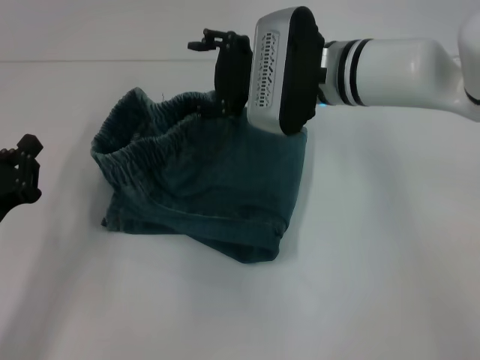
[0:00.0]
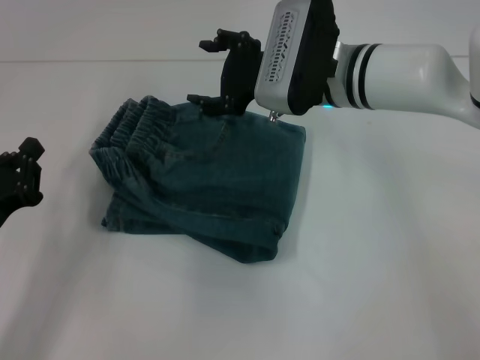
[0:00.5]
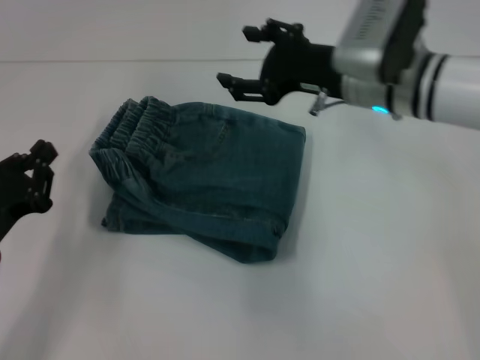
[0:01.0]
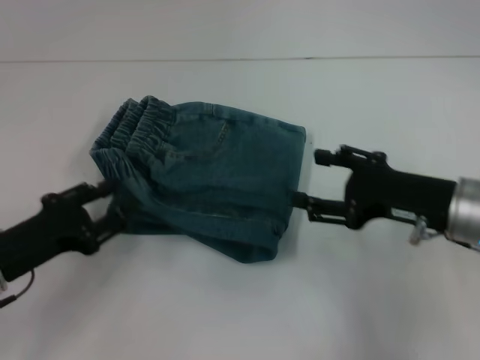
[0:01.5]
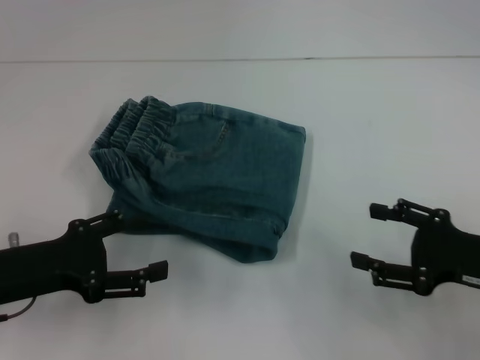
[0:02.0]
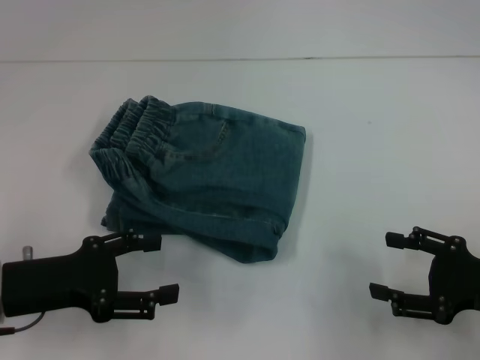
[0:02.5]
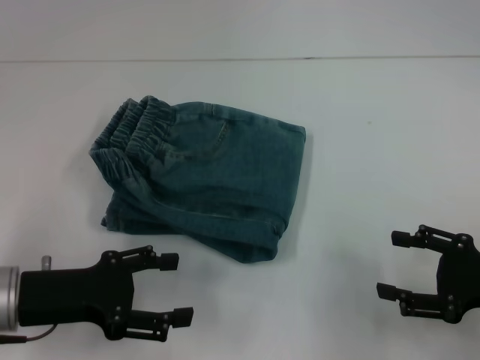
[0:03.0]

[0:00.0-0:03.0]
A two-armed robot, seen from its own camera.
0:00.0 to 0:01.5: The right gripper goes roughly 20 cm to the right and backward.
0:01.5 to 0:03.0: The right gripper travels to the right and backward by approximately 10 cm. The left gripper opens its fingers.

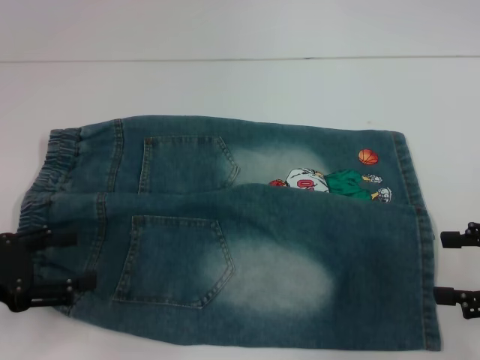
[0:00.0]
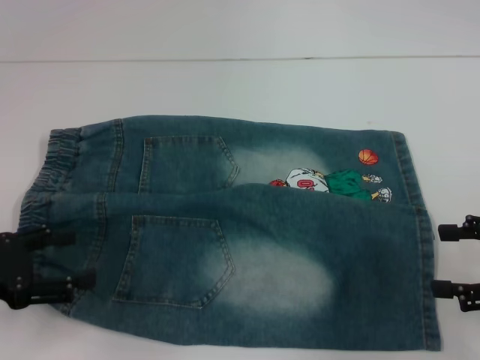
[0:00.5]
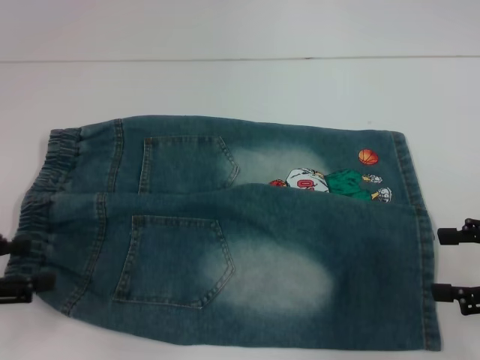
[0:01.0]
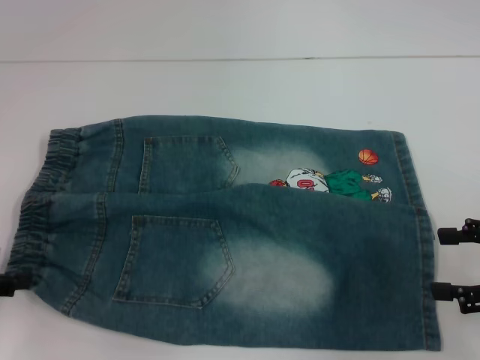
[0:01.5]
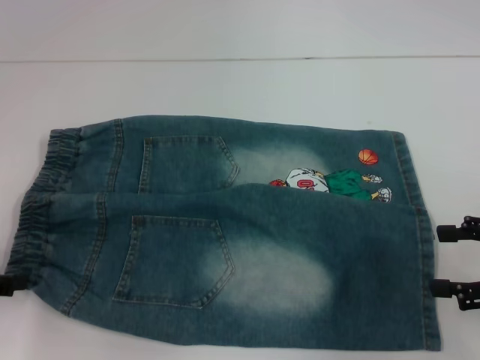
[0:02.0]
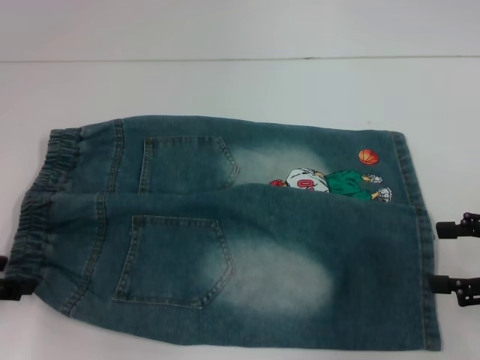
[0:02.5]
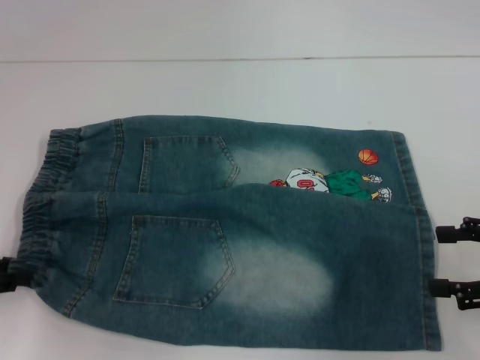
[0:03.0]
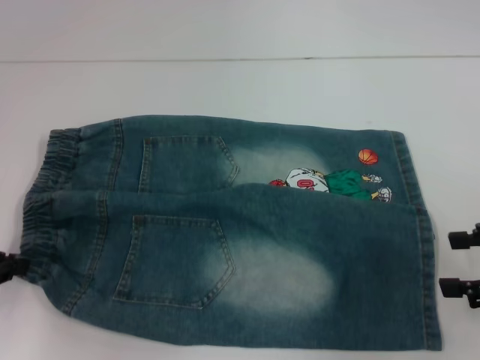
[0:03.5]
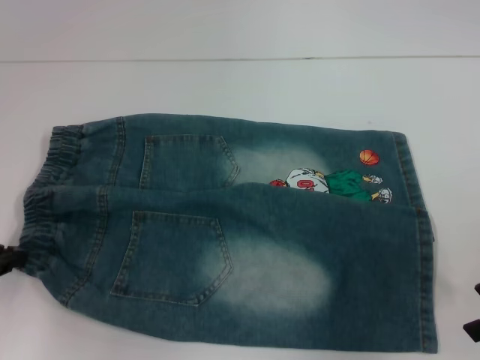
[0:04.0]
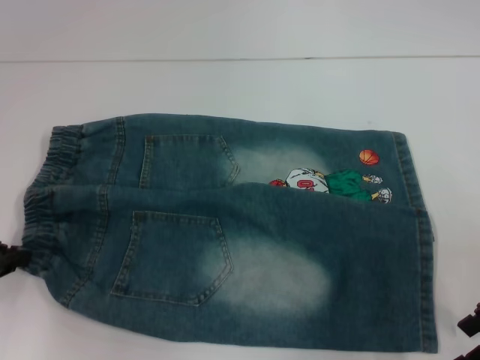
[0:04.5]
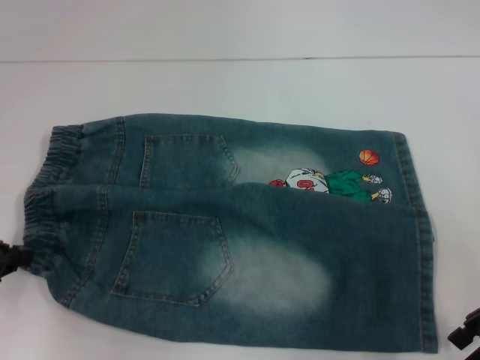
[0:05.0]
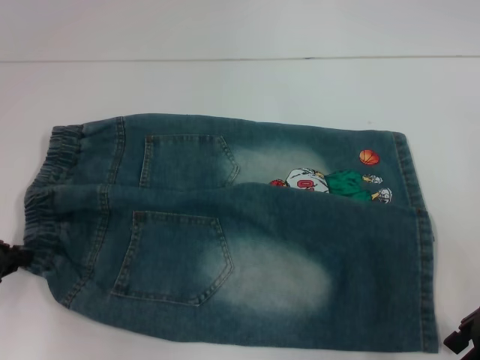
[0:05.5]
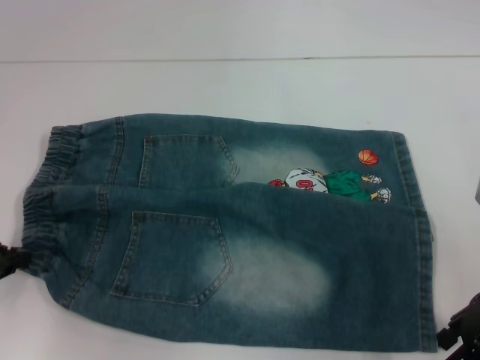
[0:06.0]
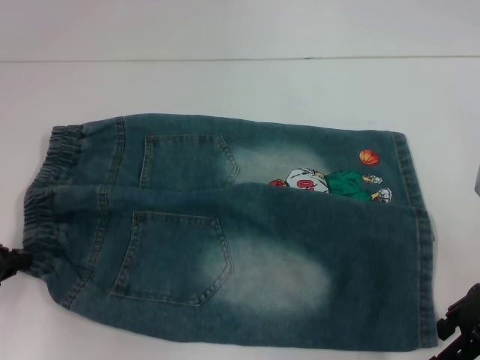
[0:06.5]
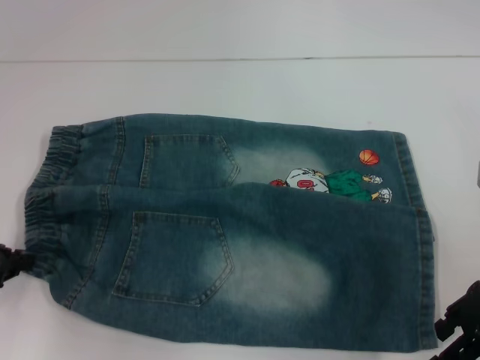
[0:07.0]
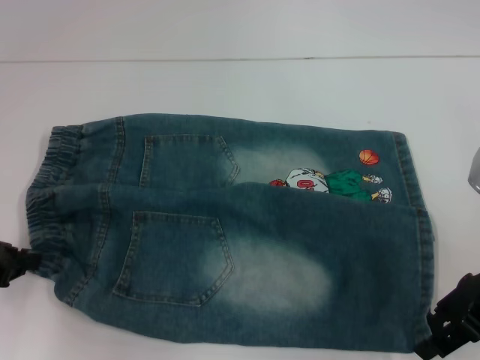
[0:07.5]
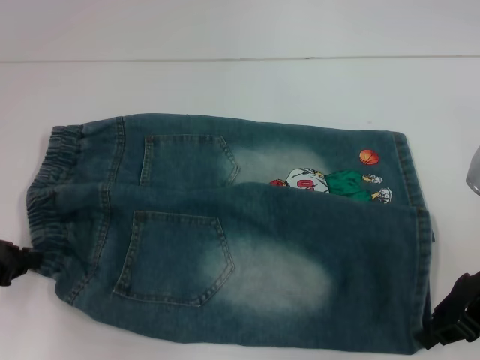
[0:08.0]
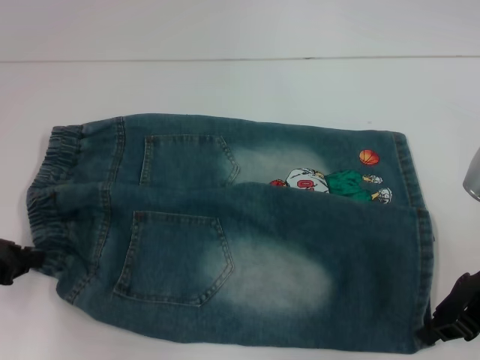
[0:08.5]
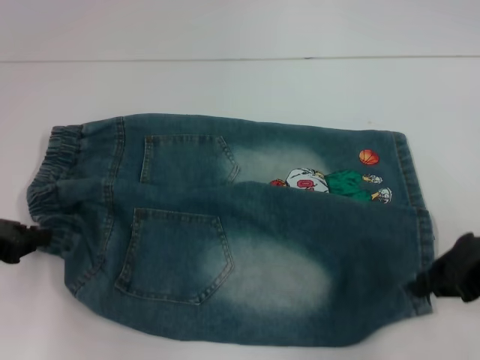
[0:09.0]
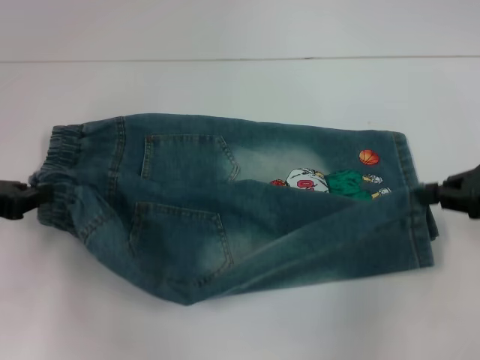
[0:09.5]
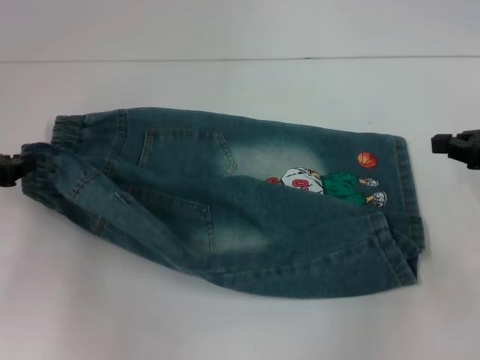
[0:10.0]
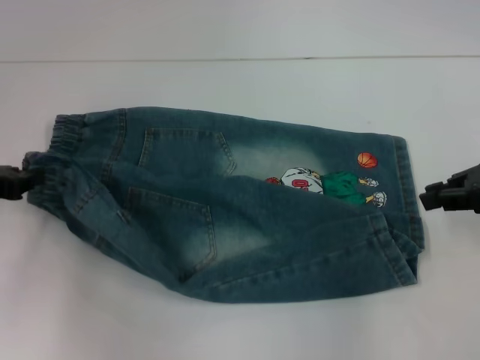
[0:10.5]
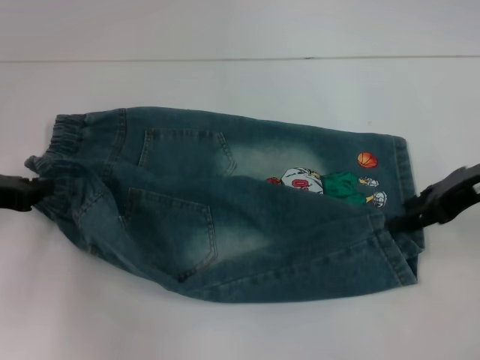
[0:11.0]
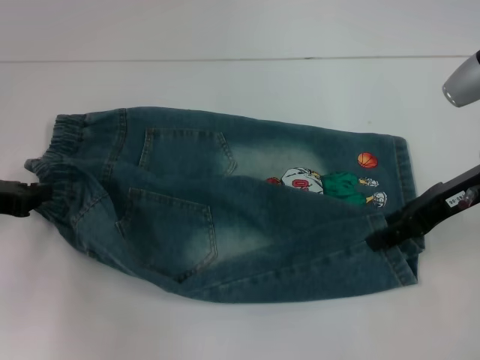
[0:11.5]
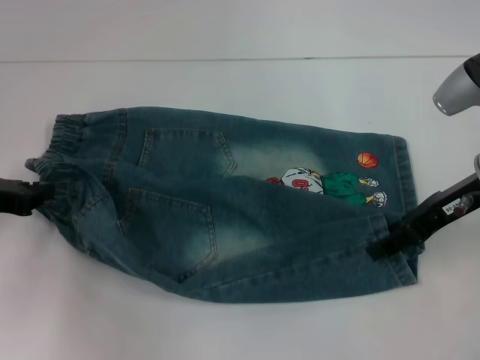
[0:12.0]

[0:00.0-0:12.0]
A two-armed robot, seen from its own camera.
Step, 0:00.0 to 0:04.0: Hold the lower left waistband with your left hand.
Step, 0:04.5 to 0:08.5: Grab the lower right pant leg with your right hand.
0:02.0 to 0:04.0: The left gripper closes up.
0:04.0 to 0:06.0: The right gripper moves to the left, some 5 cm.
0:06.0 to 0:08.0: The right gripper closes its fingers.
0:08.0 to 0:10.0: The right gripper moves to the right, approximately 5 cm.
0:10.0 to 0:12.0: The right gripper is displaced to the left by approximately 10 cm, and opens up.

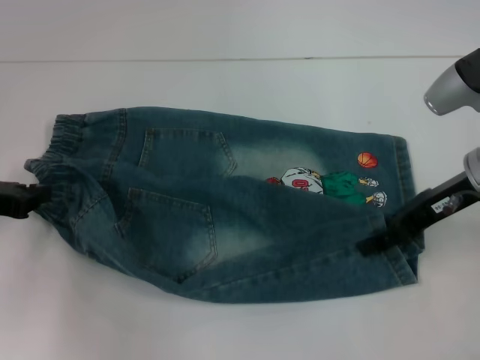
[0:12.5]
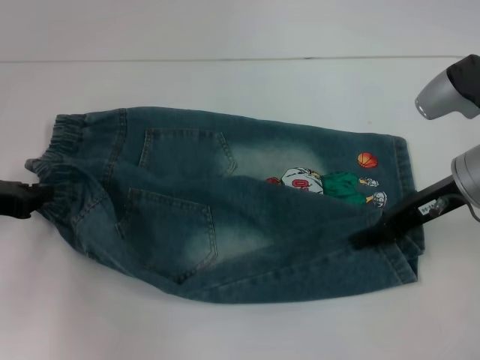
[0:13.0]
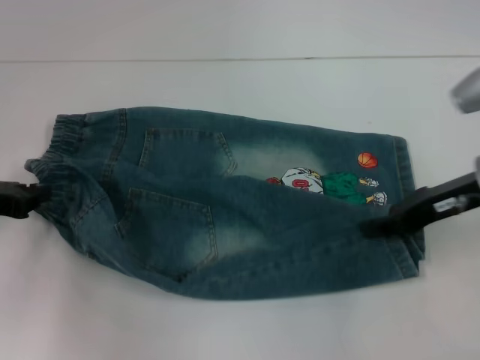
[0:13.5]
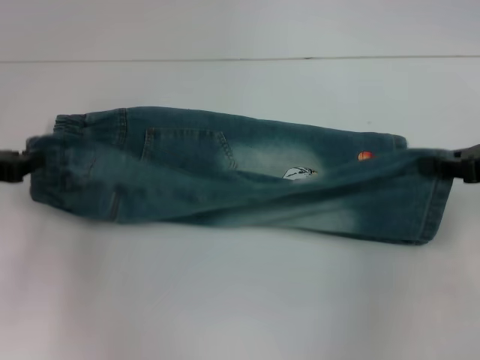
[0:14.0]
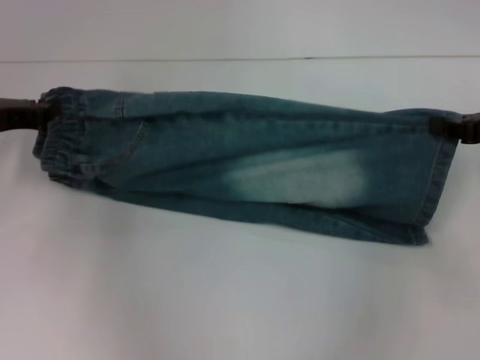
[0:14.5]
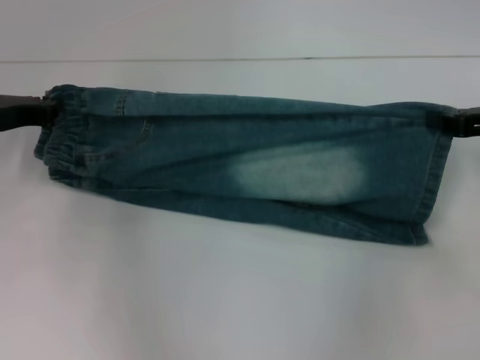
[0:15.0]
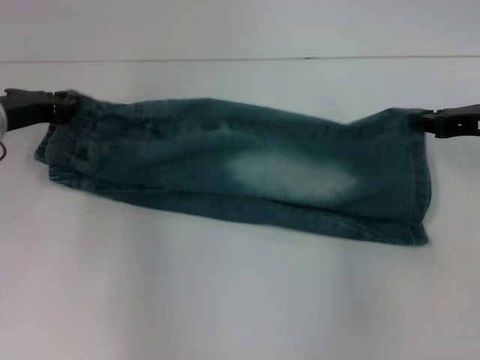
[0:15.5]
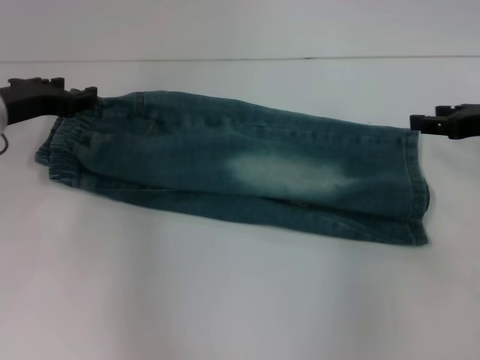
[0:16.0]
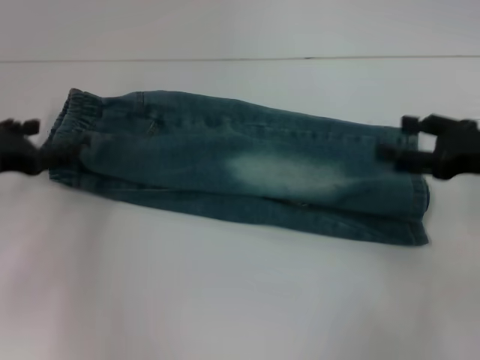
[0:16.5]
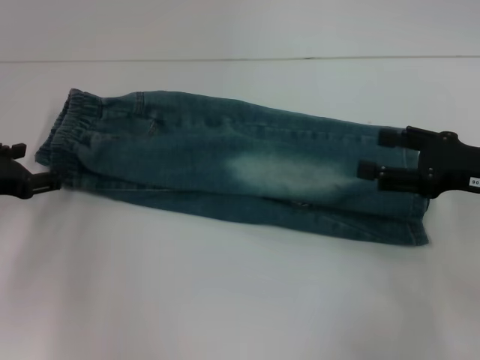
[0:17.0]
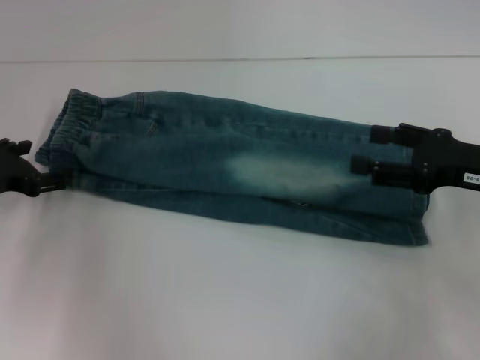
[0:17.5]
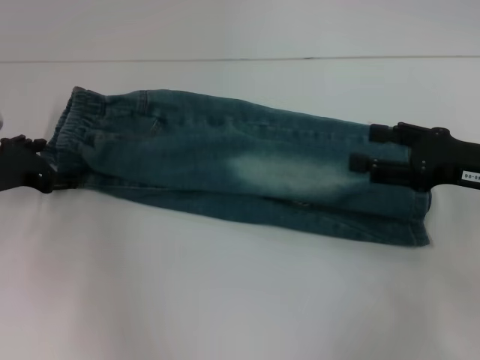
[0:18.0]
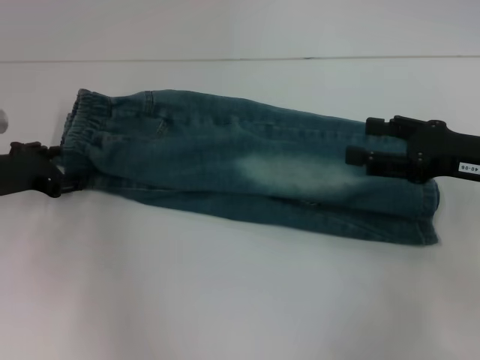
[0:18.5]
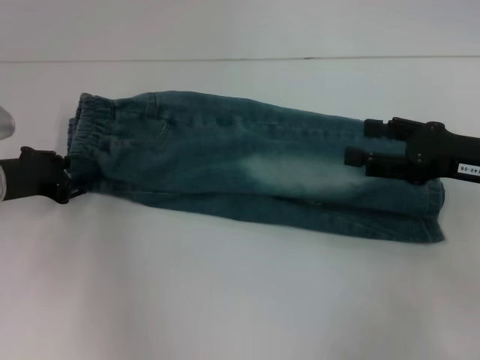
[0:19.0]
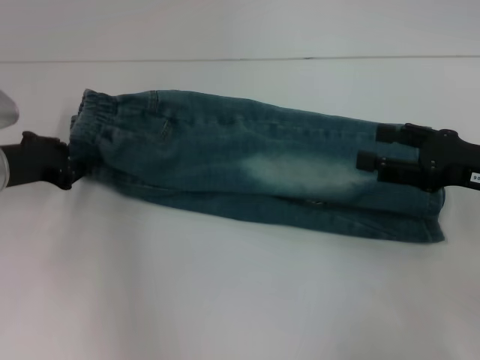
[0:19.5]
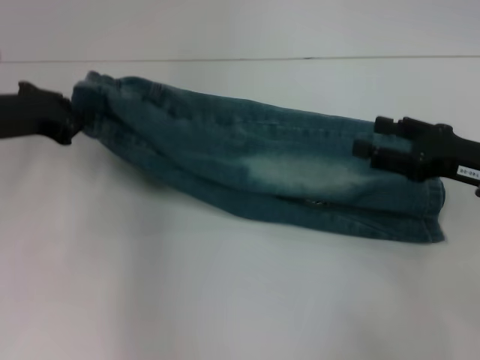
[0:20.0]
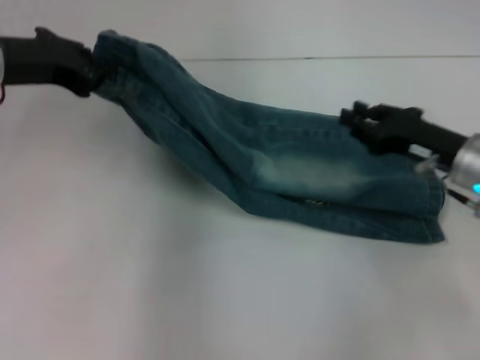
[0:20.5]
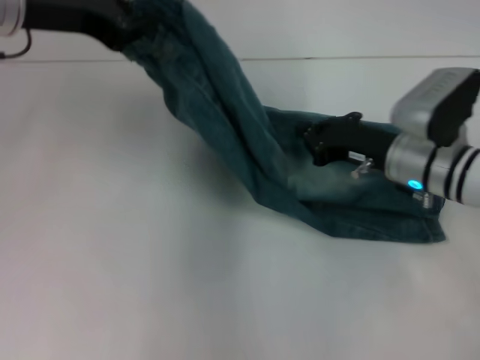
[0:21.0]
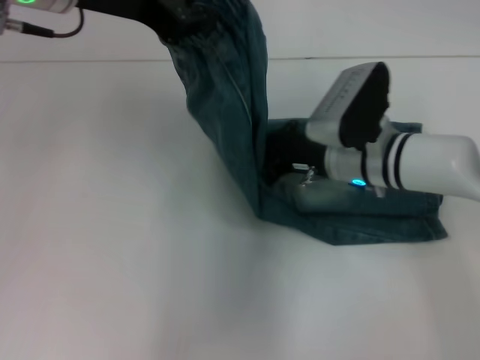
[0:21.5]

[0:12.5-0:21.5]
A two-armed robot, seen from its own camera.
Step, 0:12.5 to 0:15.5: Fold upward with your right hand.
Step, 0:16.0 to 0:19.5: Hold the waistband with your left hand.
0:12.5 to 0:14.5: The left gripper heads forward, covering some 5 cm; the right gripper travels to the right by some 10 cm, and closes.
0:14.5 to 0:17.0: The left gripper changes place by some 5 cm, and opens, while the right gripper changes place by about 5 cm, and opens.
0:17.0 to 0:19.5: The left gripper changes place by about 5 cm, and closes its fingers.
0:19.5 to 0:21.5: The right gripper heads to the left and forward, covering roughly 20 cm, and closes up, while the left gripper goes approximately 25 cm upward and to the right.

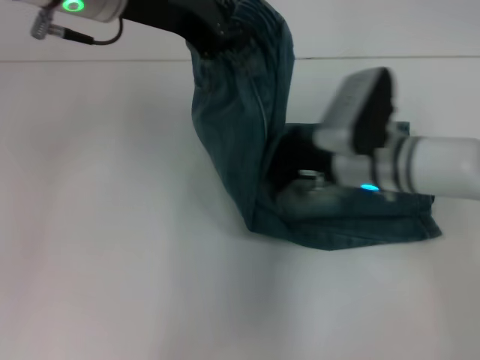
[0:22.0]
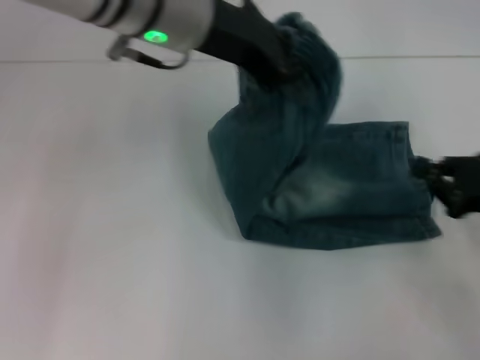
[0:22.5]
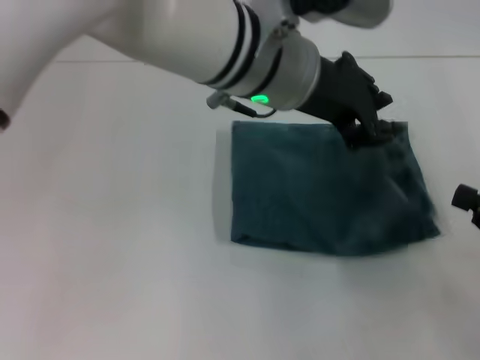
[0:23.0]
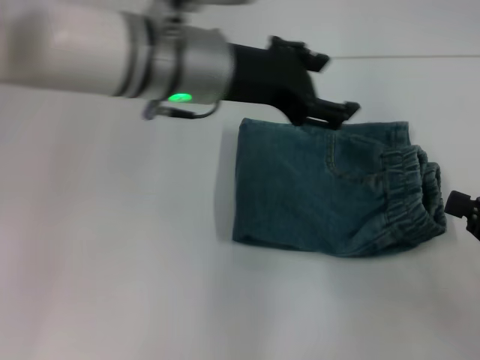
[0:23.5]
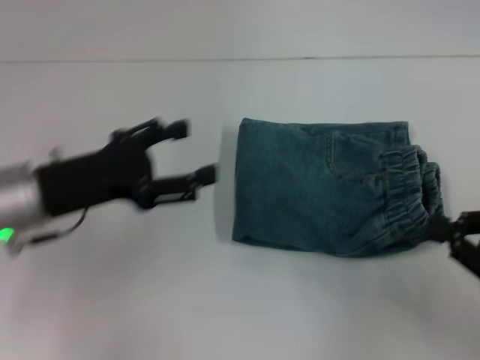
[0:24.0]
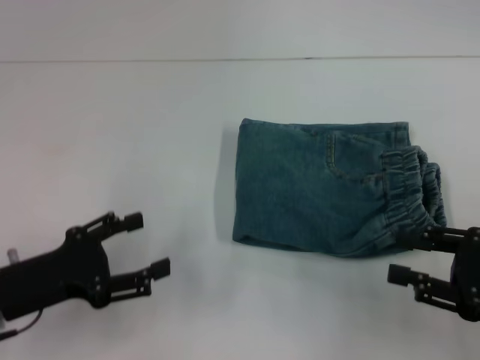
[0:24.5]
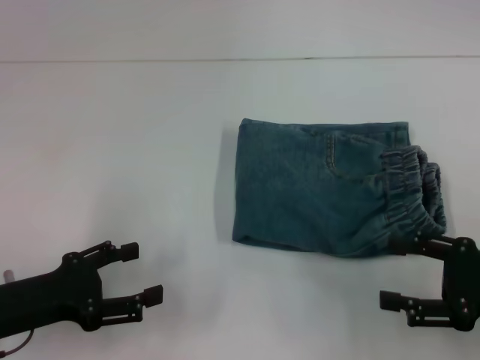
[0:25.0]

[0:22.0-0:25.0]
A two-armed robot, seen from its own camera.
Step, 0:22.5 to 0:23.0: Fold to the right with your left hand.
0:22.0 to 0:23.5: The left gripper heads downward and to the right, covering about 10 cm, and opens, while the right gripper travels to the right and backward by approximately 25 cm.
0:23.5 to 0:25.0: The left gripper is displaced to the left, downward and backward by about 30 cm. Meanwhile the right gripper opens its fingers.
